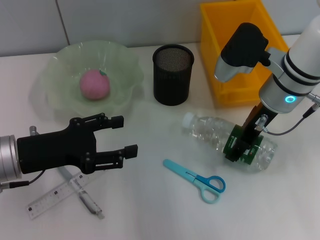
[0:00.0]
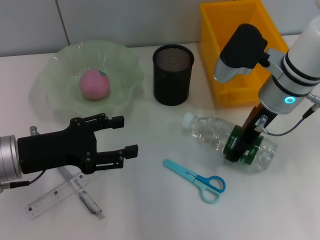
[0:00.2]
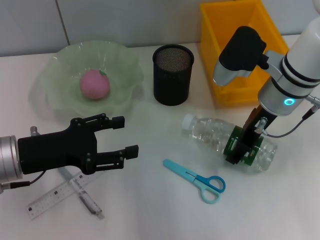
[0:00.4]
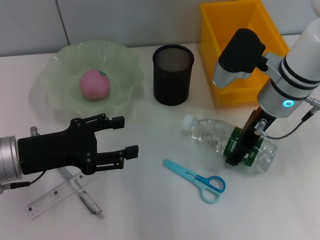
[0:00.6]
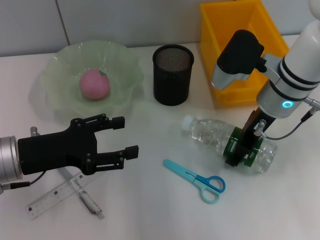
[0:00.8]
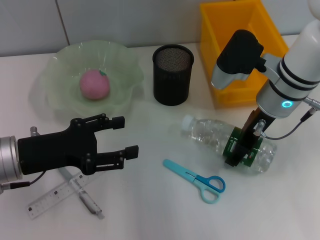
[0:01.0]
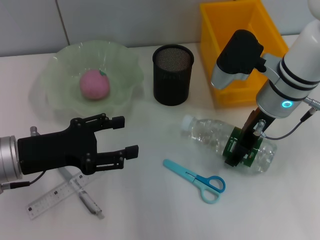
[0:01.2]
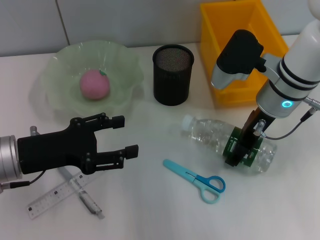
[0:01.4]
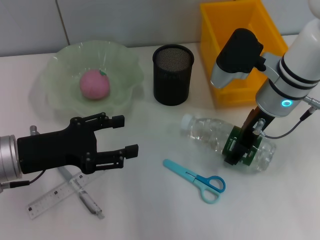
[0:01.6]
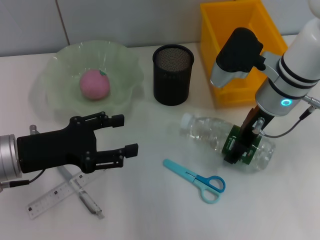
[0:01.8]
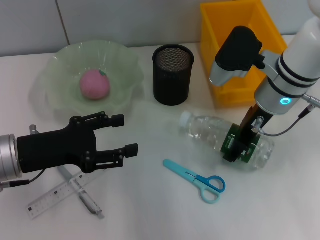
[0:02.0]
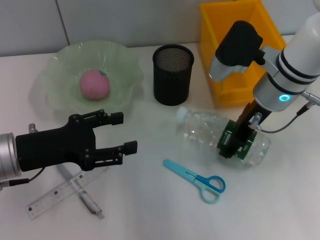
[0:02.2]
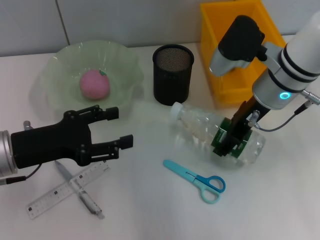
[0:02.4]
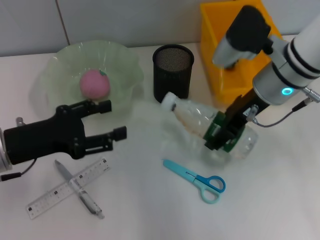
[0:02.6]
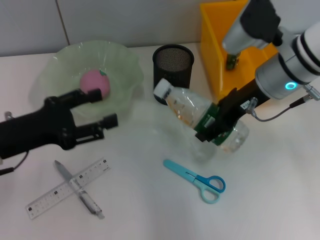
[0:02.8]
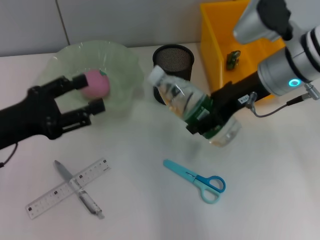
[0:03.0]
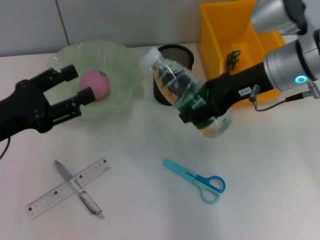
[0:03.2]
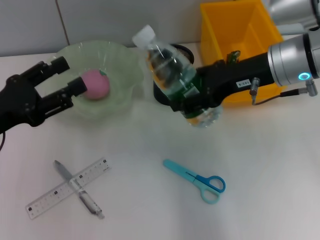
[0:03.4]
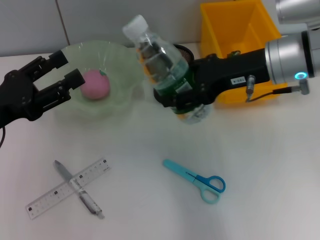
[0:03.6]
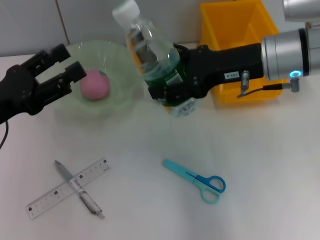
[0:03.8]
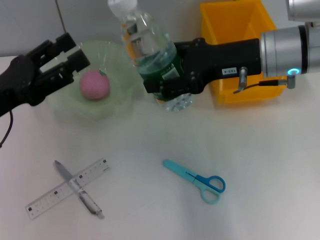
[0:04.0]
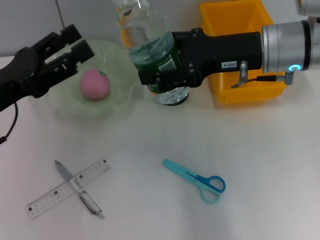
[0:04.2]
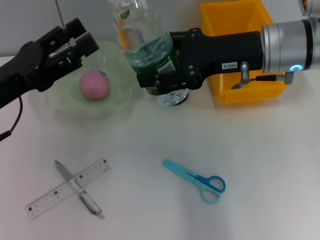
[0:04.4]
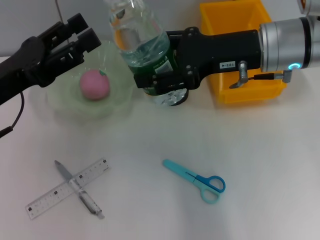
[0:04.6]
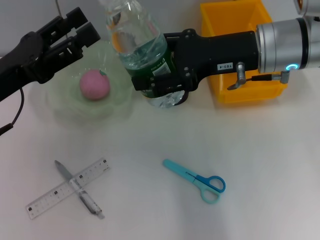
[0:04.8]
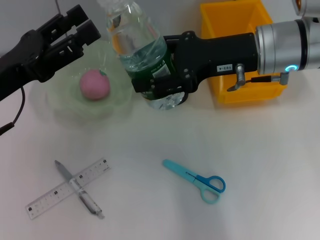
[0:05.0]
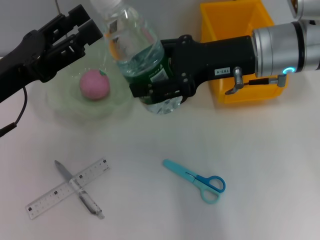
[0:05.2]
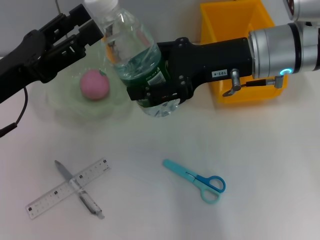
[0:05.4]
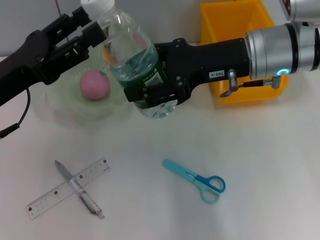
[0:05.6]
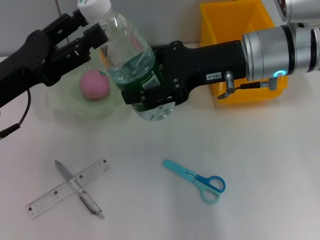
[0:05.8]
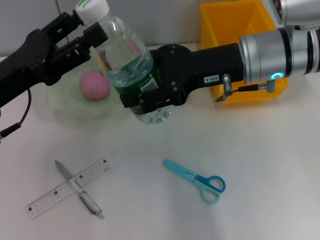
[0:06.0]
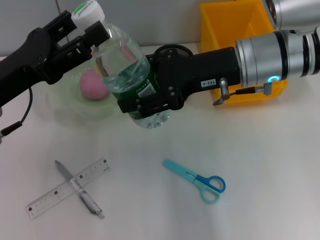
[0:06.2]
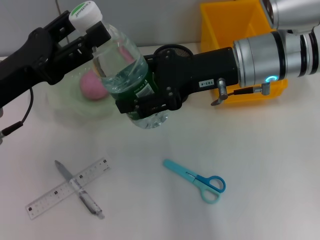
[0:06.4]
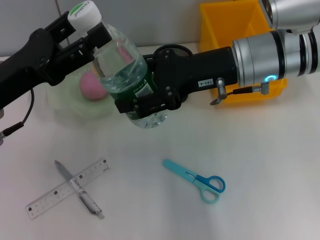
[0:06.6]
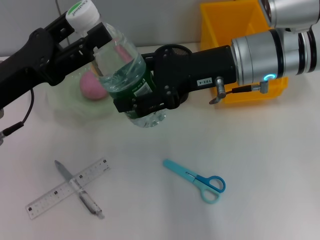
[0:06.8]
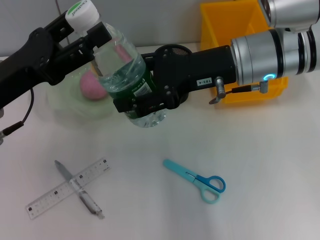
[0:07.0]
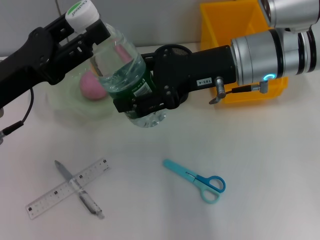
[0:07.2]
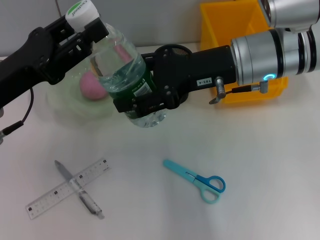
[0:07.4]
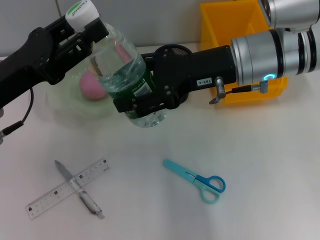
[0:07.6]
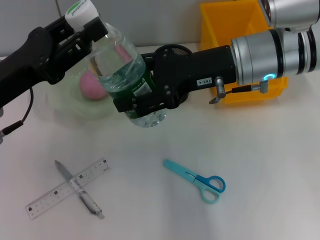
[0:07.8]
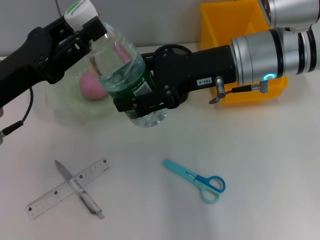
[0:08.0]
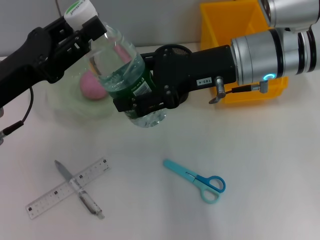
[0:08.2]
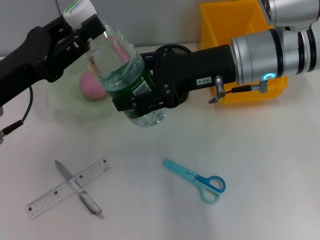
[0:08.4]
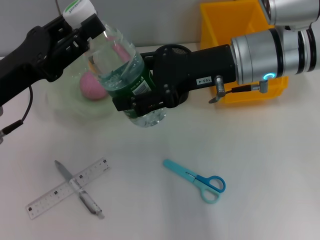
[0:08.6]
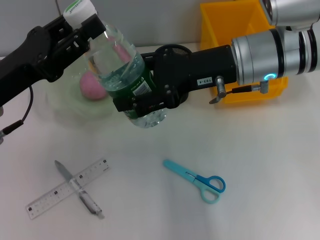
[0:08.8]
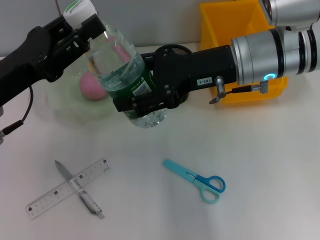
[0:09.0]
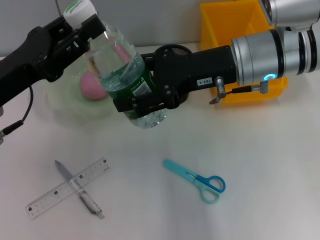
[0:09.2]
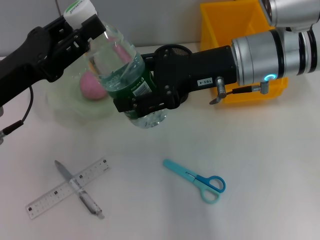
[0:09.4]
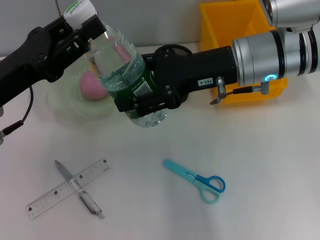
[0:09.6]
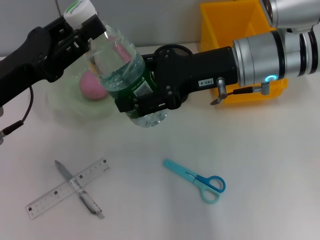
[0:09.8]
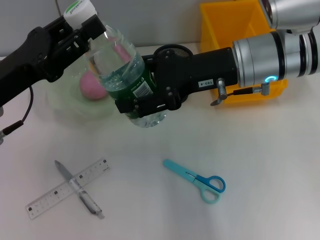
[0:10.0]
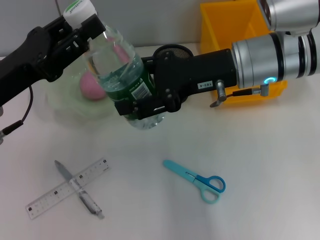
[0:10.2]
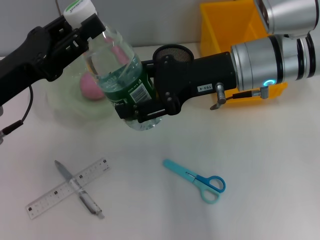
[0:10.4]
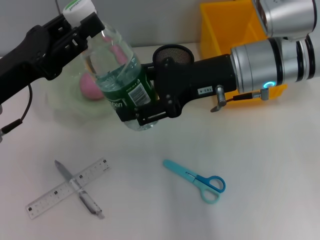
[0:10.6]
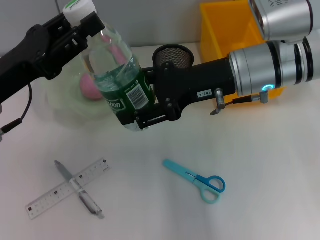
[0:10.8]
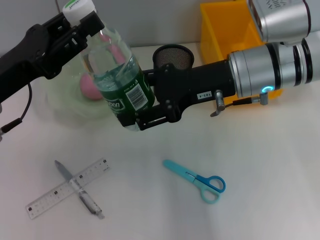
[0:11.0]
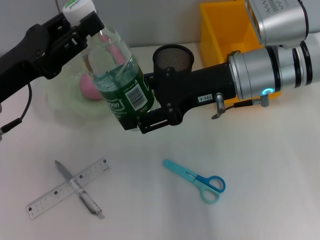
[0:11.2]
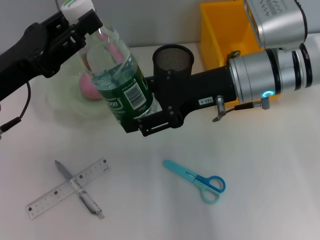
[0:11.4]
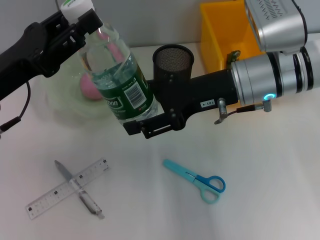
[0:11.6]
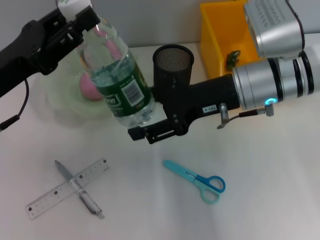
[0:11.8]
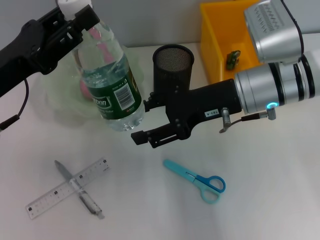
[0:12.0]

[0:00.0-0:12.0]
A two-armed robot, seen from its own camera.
Step, 0:01.6 to 0:11.8: Pass the water bottle from the right hand to the left hand.
0:00.0 to 0:01.6: The two grippers keep their place.
0:04.4 to 0:06.0: The grippers make only small movements.
0:06.0 to 0:10.4: Both grippers stay about where they are.

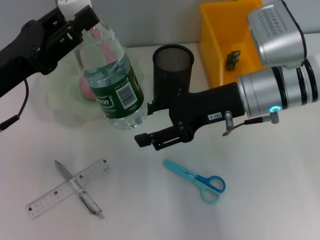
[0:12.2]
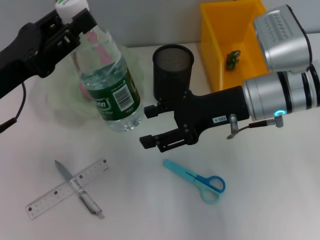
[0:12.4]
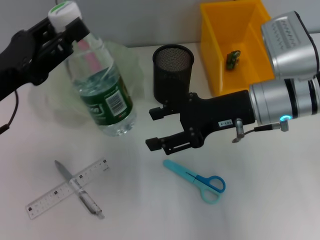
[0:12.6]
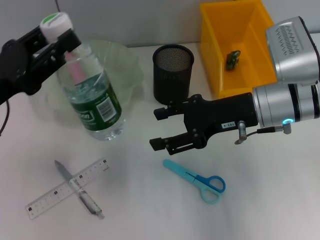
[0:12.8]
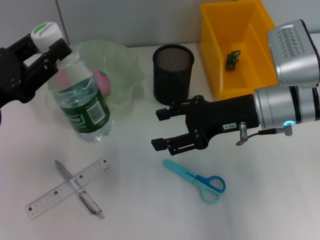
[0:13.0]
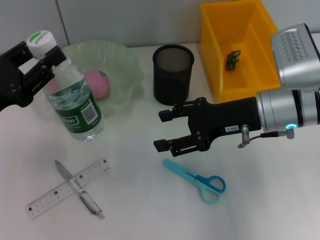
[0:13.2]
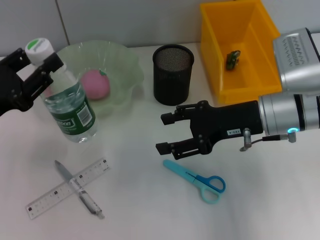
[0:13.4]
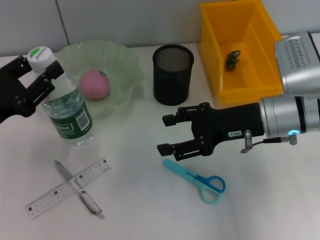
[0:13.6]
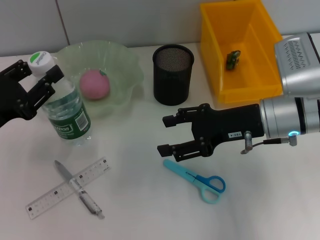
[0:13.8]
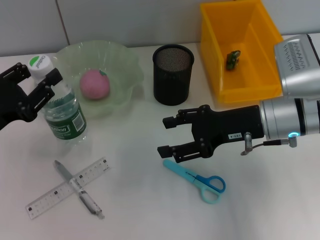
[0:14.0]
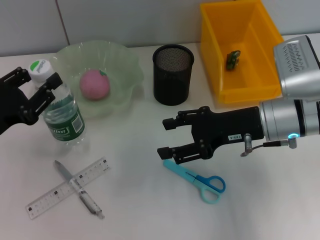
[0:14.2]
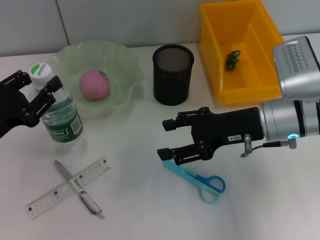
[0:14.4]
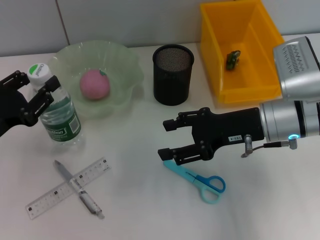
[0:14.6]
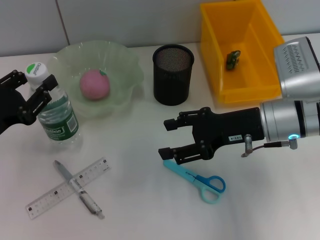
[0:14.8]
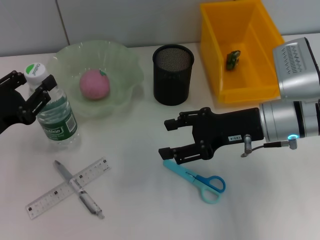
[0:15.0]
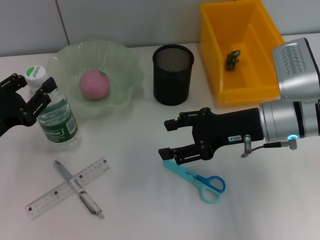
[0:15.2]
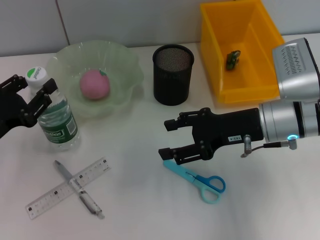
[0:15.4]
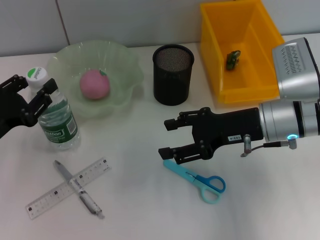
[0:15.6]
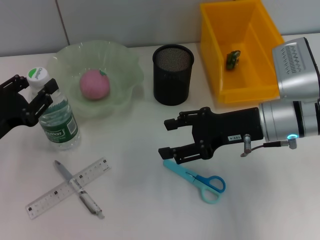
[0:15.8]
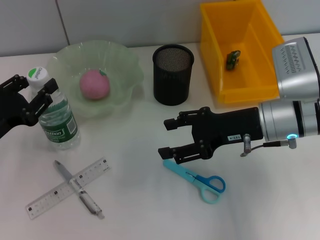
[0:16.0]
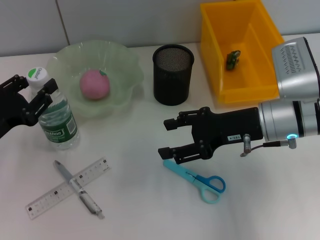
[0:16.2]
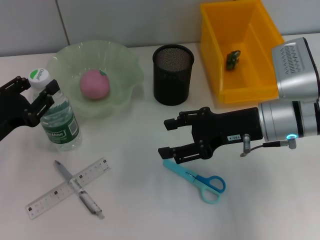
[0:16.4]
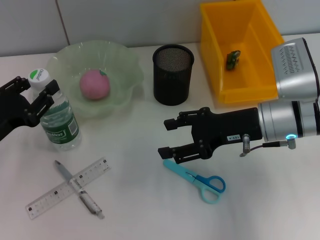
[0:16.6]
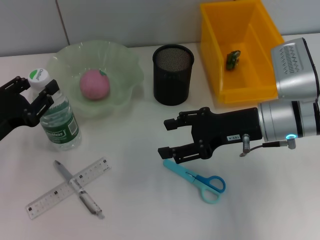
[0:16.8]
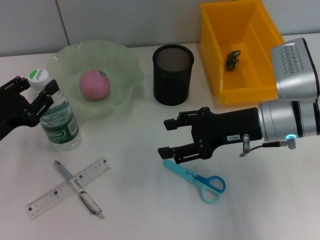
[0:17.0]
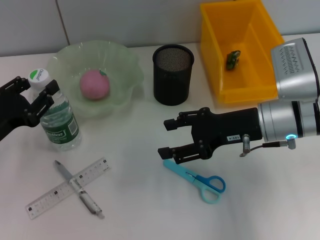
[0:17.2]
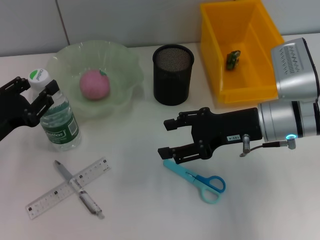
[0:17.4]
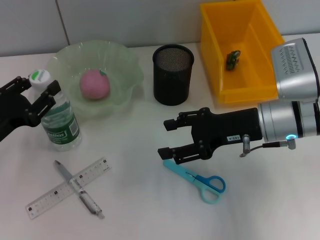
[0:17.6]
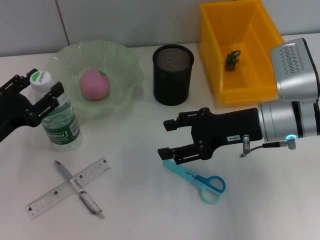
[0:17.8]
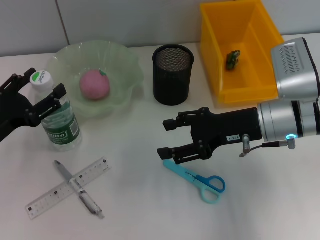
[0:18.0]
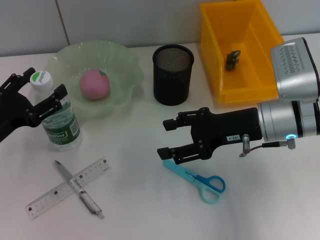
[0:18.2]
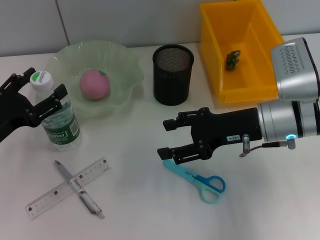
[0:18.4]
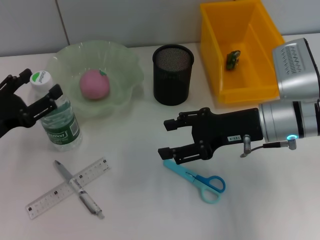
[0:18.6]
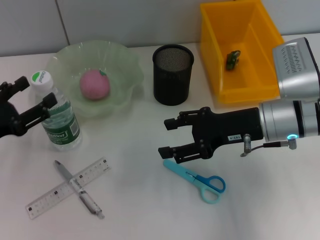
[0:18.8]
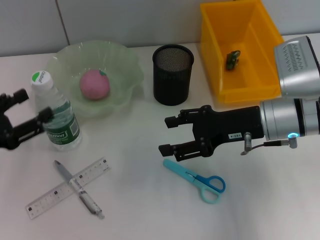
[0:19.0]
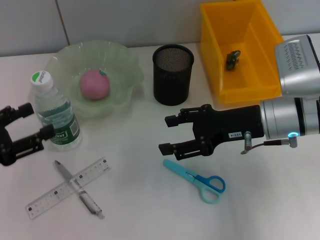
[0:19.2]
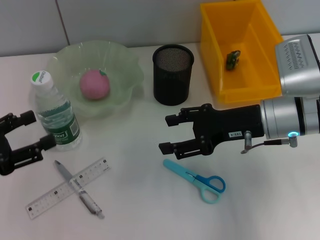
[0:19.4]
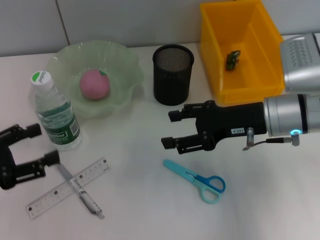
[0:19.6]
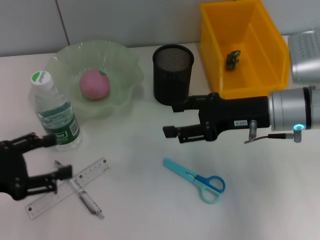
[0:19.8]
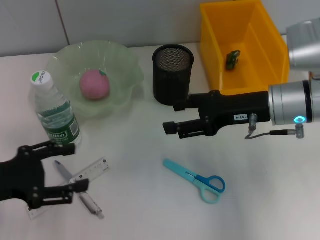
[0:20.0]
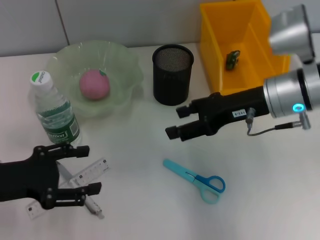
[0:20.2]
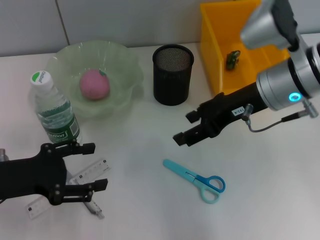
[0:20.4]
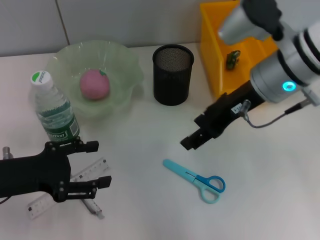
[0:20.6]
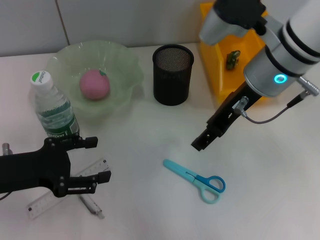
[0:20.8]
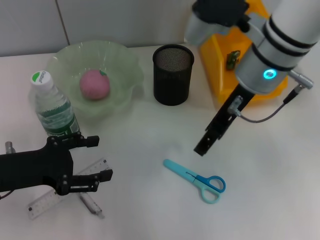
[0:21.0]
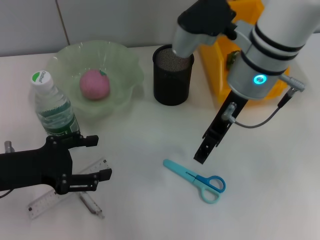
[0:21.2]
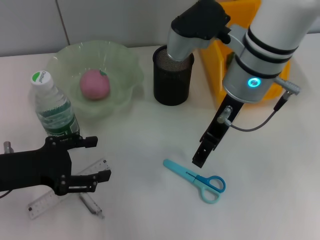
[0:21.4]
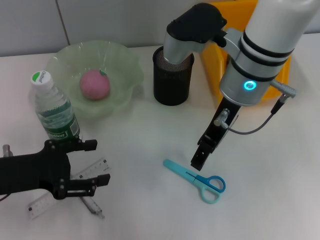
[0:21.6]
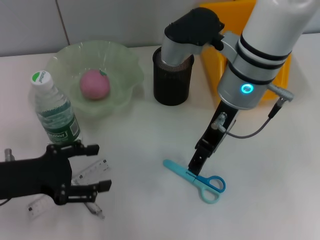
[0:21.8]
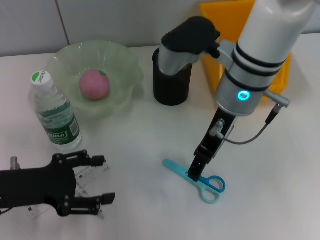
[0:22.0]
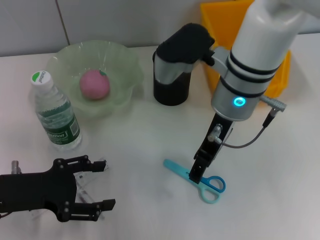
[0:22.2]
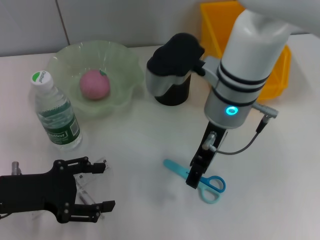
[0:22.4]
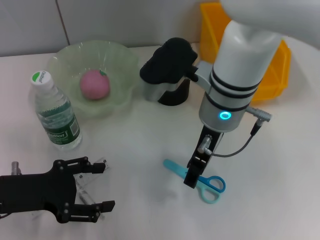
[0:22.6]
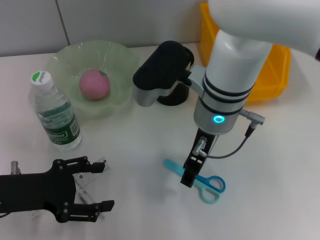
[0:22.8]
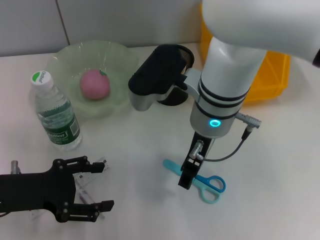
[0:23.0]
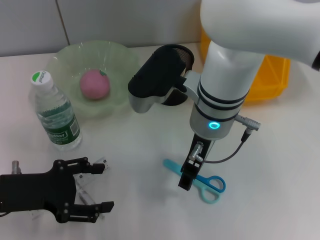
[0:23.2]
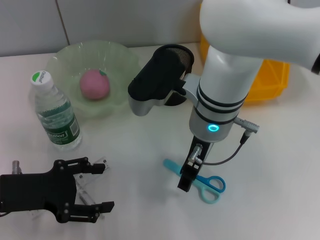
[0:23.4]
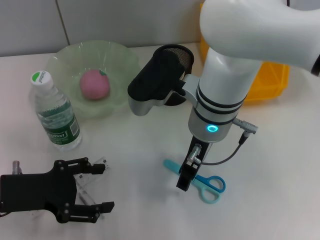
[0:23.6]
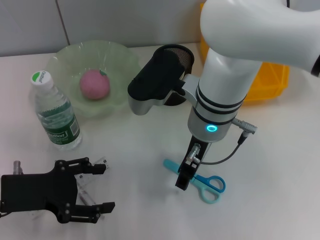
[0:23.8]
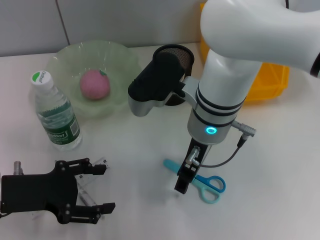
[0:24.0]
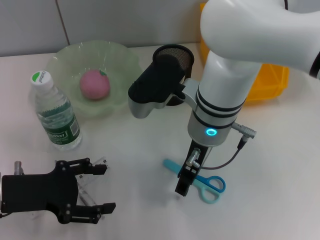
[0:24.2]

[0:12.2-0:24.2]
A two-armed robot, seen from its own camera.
Step, 0:12.2 to 0:18.0: Place the water bottle on the table with the left hand.
0:12.2 to 0:13.8: The left gripper is displaced downward by roughly 5 cm.
0:13.8 to 0:15.2: The grippers move only a little.
0:15.2 to 0:16.6: Neither gripper changes place.
0:16.6 to 0:18.2: The left gripper opens its fingers.
0:18.2 to 0:19.8: The left gripper moves about 5 cm.
0:19.8 to 0:21.2: The right gripper moves to the left and upward, roughly 15 cm, while the left gripper changes place by some 5 cm.
0:21.2 to 0:22.6: The right gripper ends up roughly 5 cm from where it was.
0:22.6 to 0:24.2: The grippers make only small movements.
